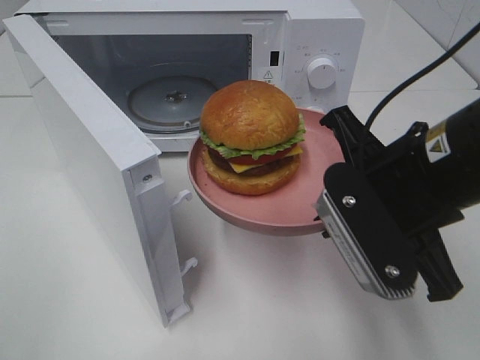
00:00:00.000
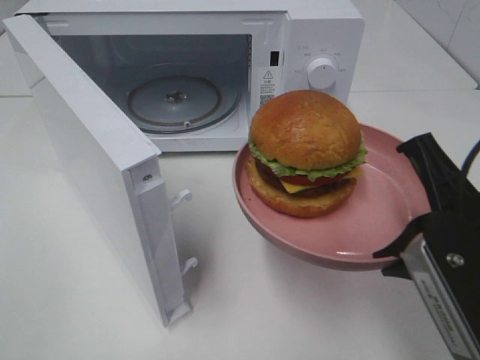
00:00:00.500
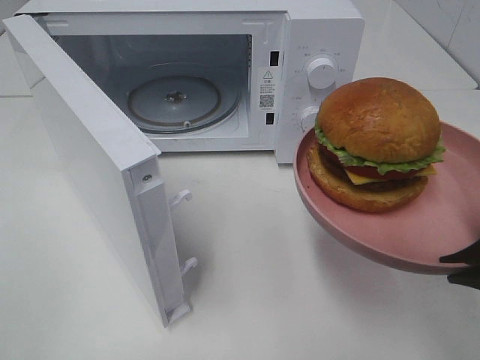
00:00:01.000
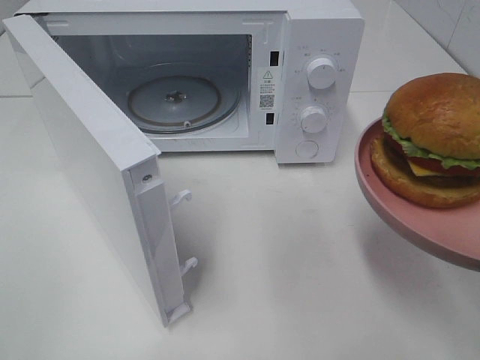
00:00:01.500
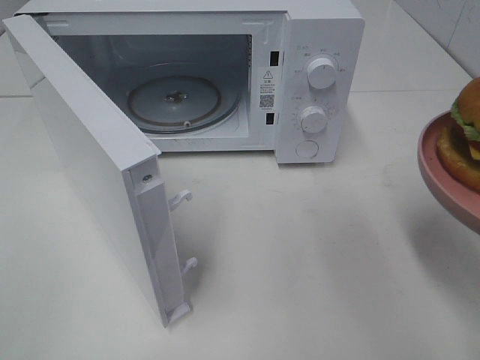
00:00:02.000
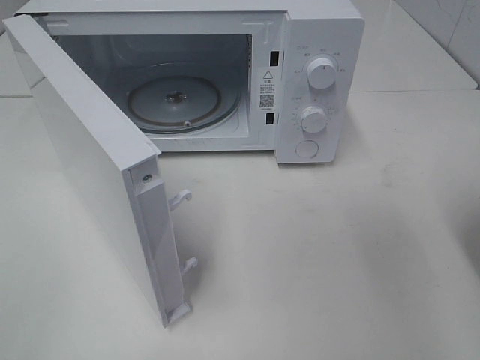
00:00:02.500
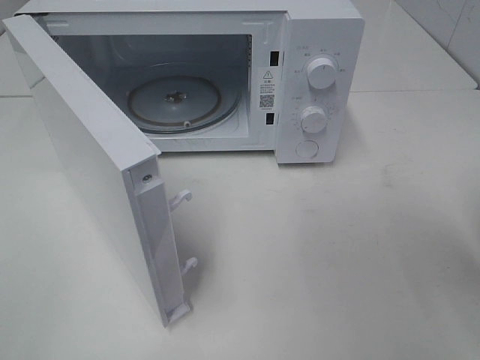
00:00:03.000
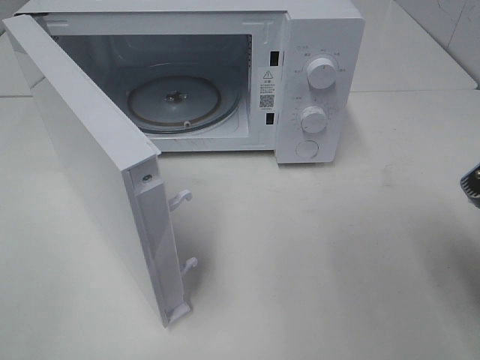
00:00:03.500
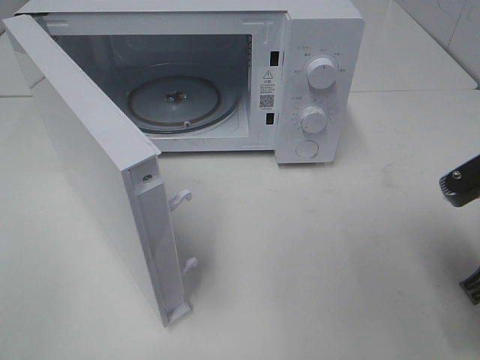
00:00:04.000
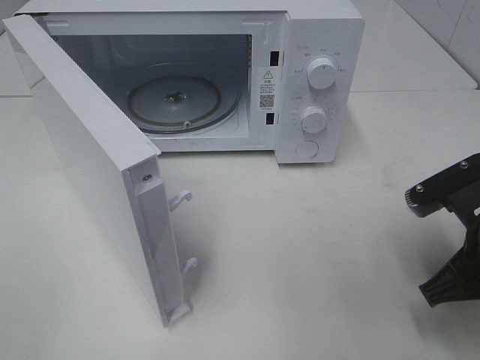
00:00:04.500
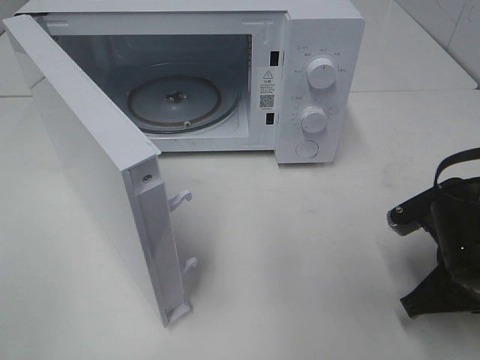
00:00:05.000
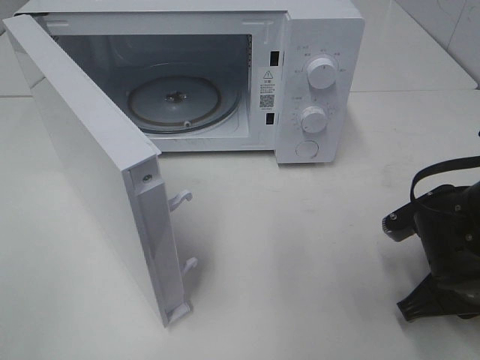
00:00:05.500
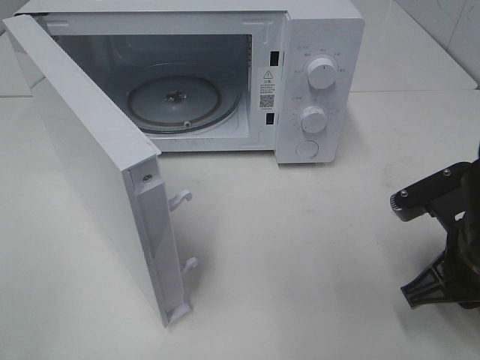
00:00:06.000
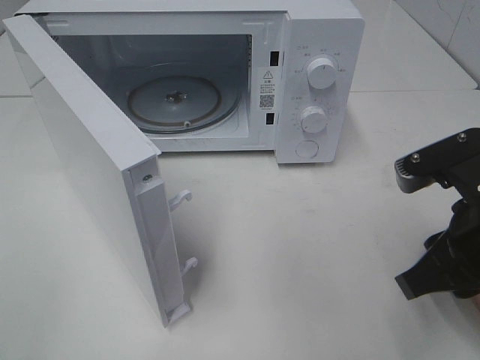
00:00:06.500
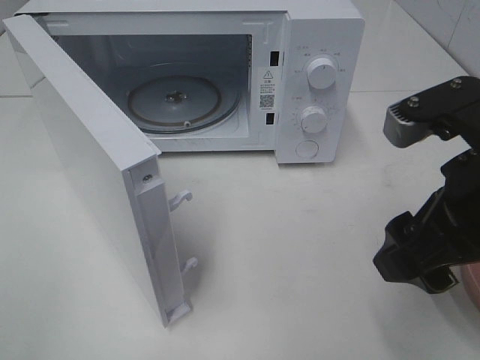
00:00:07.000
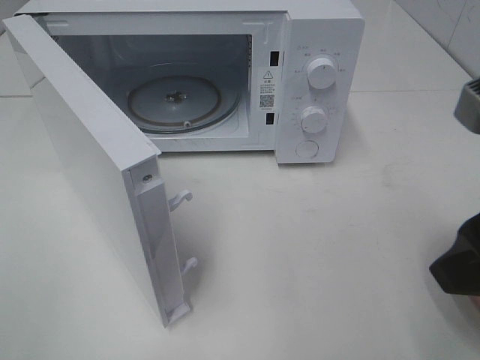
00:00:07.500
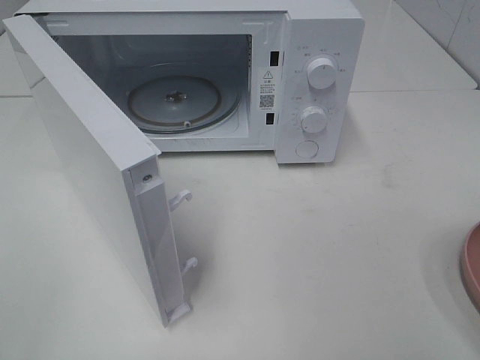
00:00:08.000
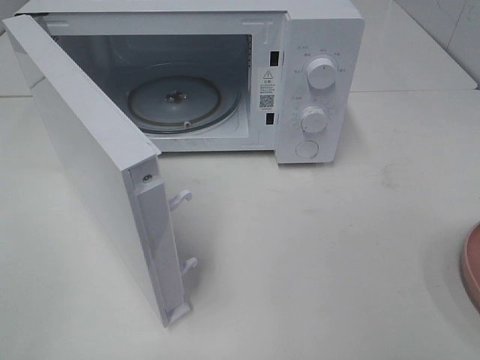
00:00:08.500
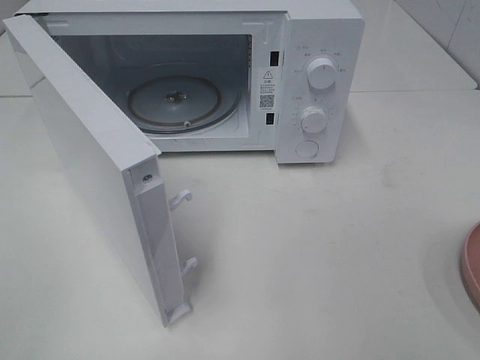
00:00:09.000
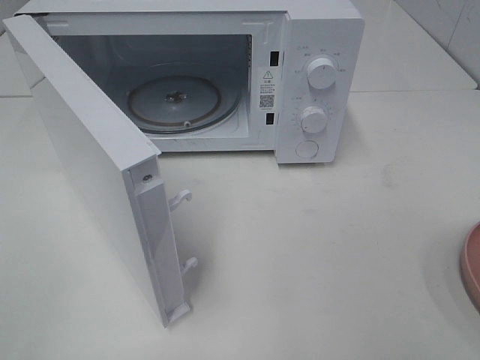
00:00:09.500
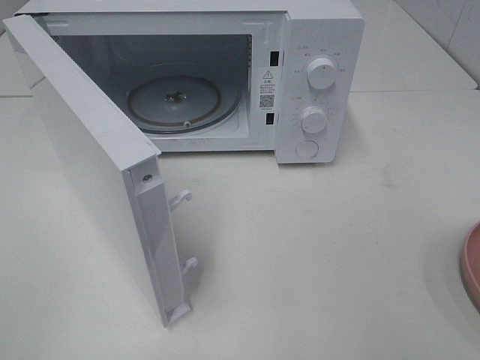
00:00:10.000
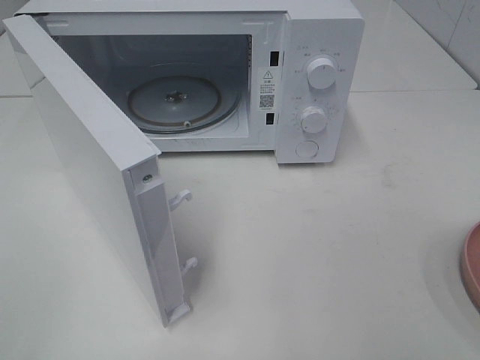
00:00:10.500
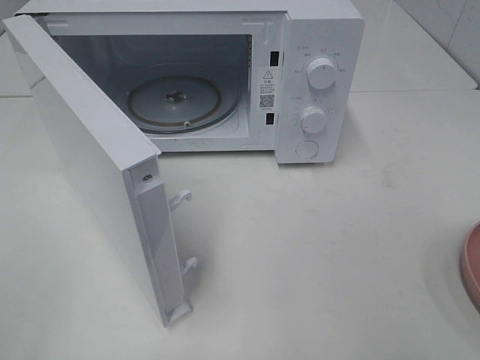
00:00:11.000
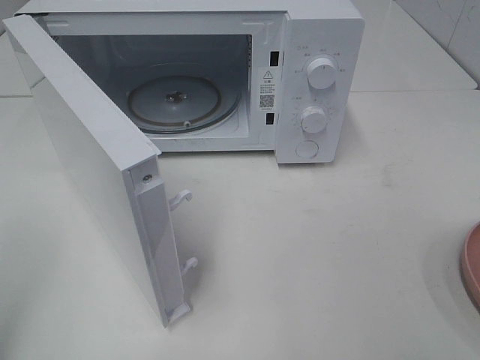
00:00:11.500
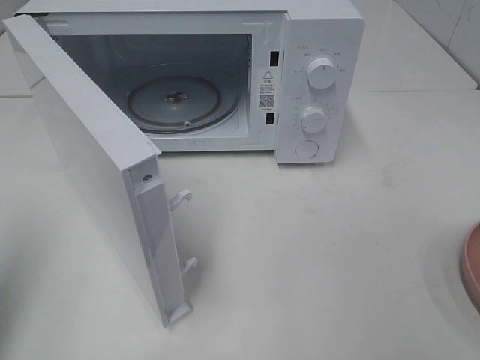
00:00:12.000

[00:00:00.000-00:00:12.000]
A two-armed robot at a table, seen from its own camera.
Task of the whole recording: Heat the burger.
Step, 00:00:00.000 to 00:00:05.500: Right hand: place the plate on the table.
00:00:00.000 to 00:00:02.000: The right gripper travels to the right and backward by about 15 cm.
00:00:02.000 to 00:00:04.000: The right gripper travels downward and forward by some 10 cm.
00:00:06.000 to 00:00:08.000: The right gripper travels upward and backward by some 20 cm, and opens its fingers.
00:00:10.000 to 00:00:12.000: The left gripper travels forward by roughly 15 cm, and closes.

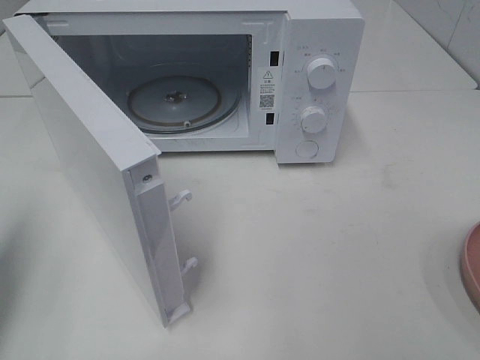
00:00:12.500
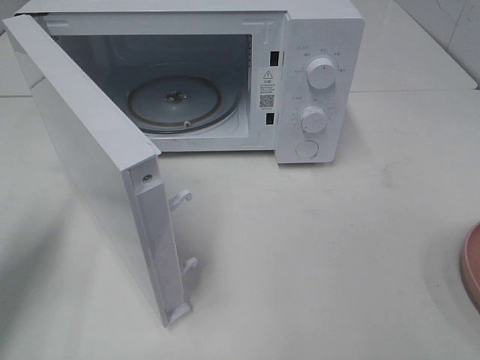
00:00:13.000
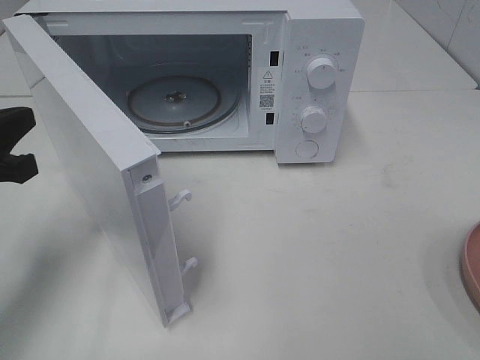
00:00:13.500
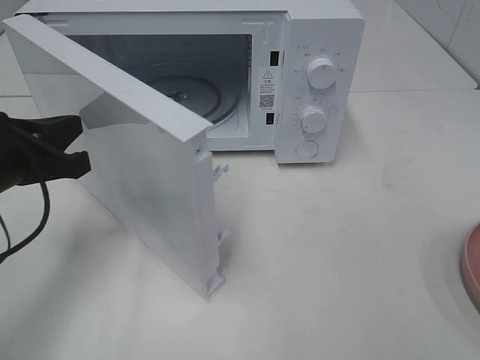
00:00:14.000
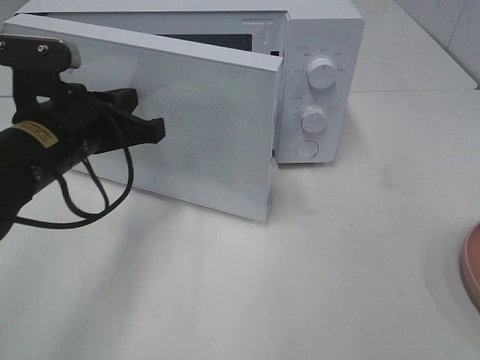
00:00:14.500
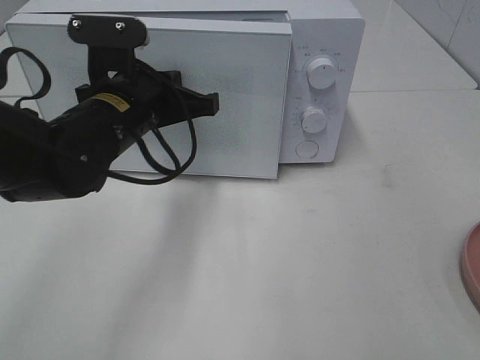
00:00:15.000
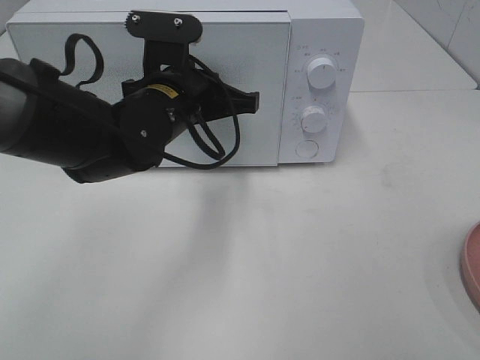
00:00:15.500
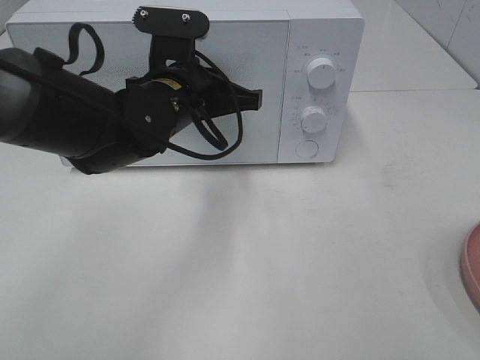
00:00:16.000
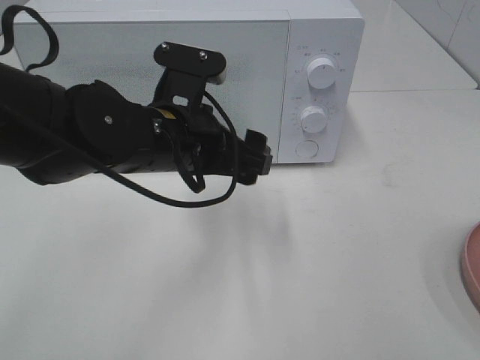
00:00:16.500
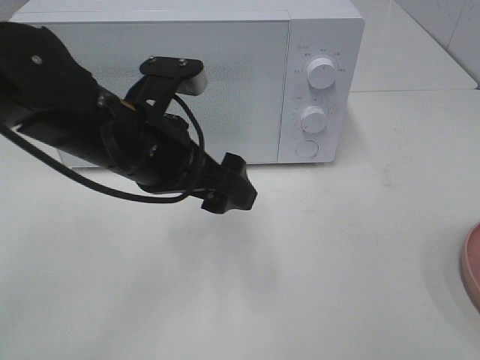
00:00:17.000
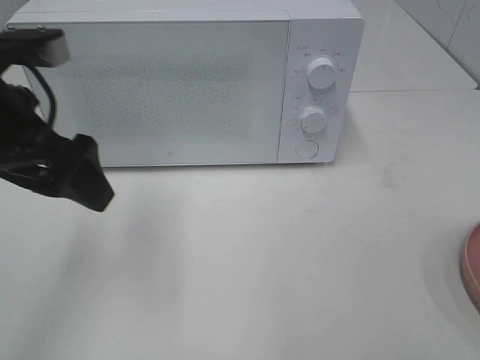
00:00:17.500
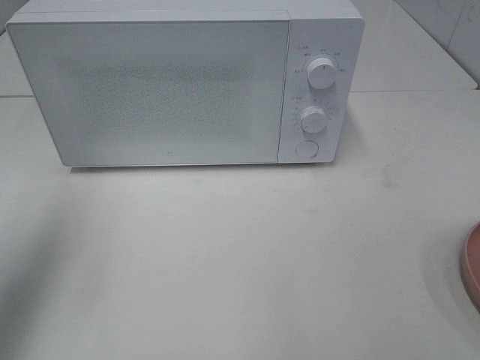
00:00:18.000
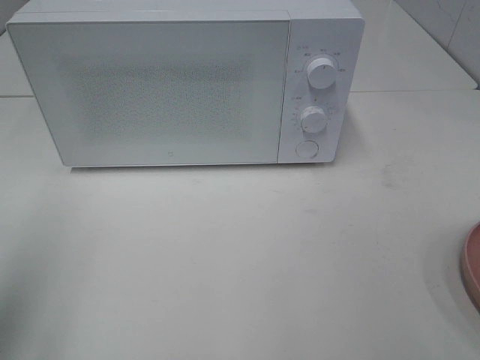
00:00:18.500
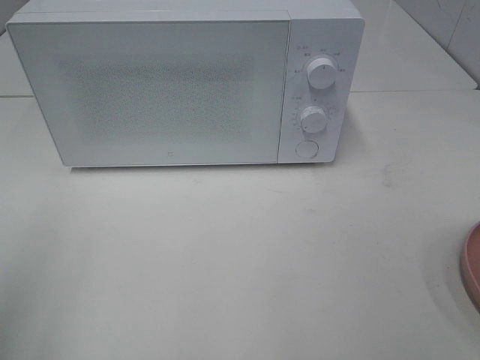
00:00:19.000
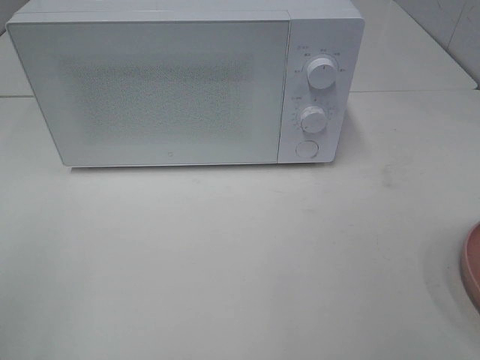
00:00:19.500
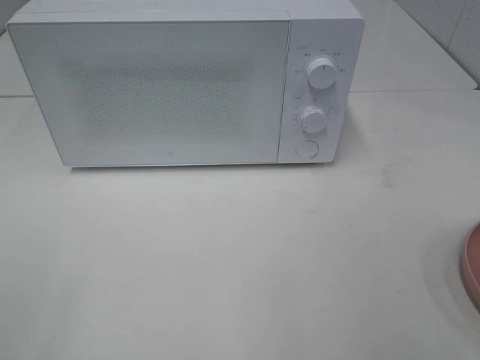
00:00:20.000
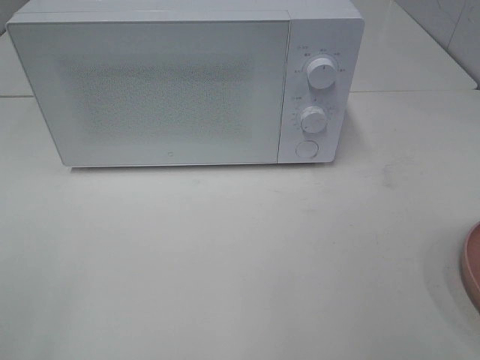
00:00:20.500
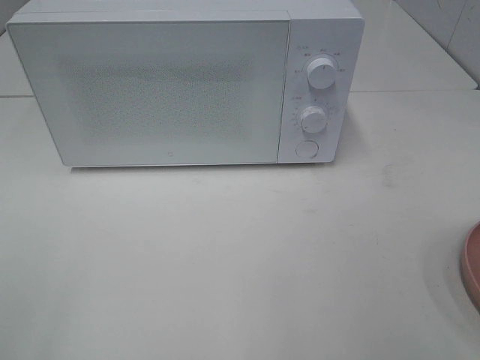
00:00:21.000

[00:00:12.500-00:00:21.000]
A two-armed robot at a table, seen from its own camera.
Task of the whole recording: Heat the burger.
Step, 00:00:12.500 to 00:00:16.000: Left hand: close the microwave door.
00:00:12.500 to 00:00:14.500: The left gripper heads to the right and forward, covering about 20 cm.
00:00:14.500 to 00:00:16.500: The left gripper is displaced to the right by some 10 cm, and opens up.
00:00:16.500 to 00:00:19.000: The left gripper goes approximately 30 cm to the left and backward.

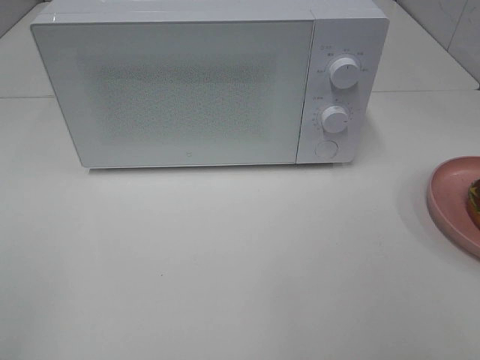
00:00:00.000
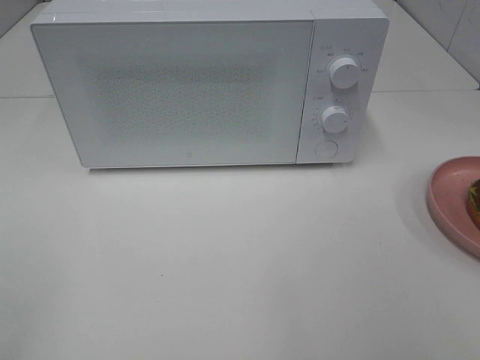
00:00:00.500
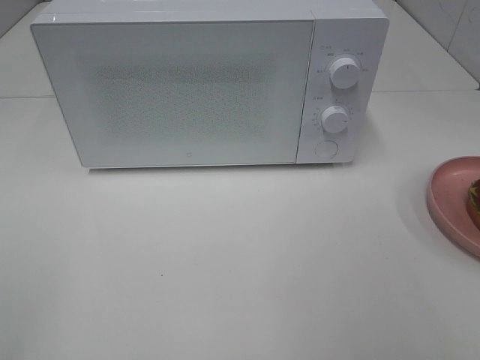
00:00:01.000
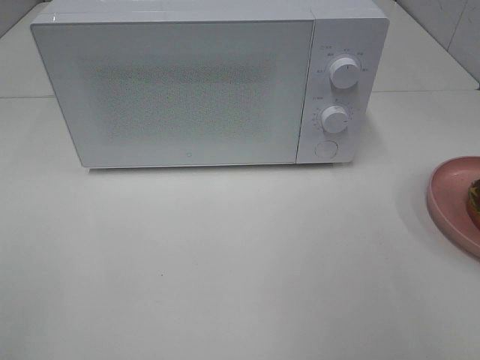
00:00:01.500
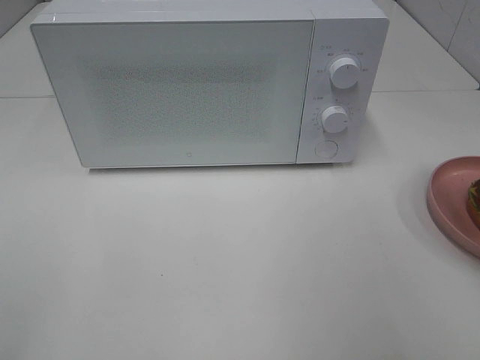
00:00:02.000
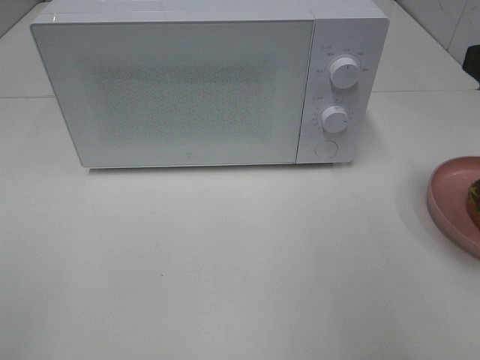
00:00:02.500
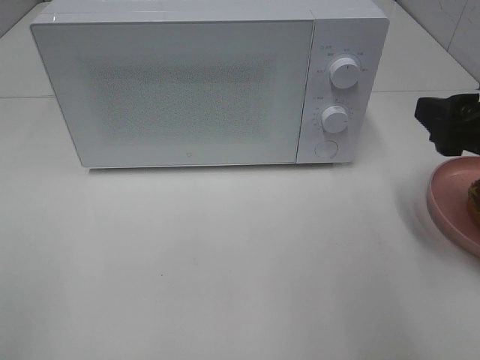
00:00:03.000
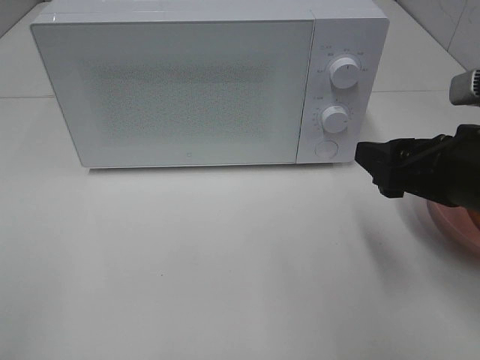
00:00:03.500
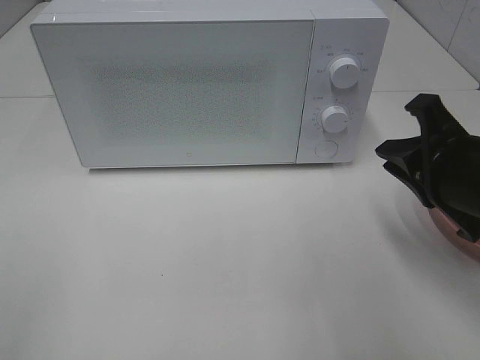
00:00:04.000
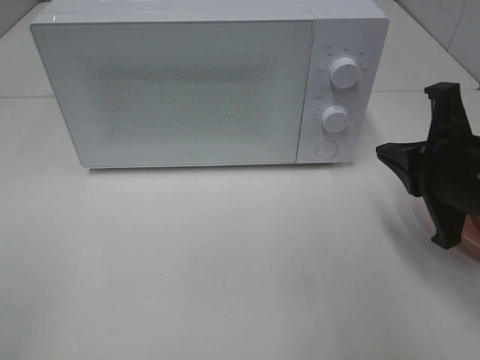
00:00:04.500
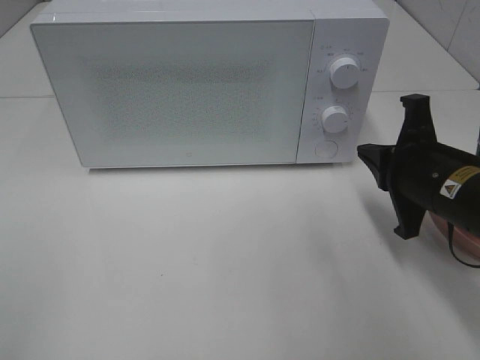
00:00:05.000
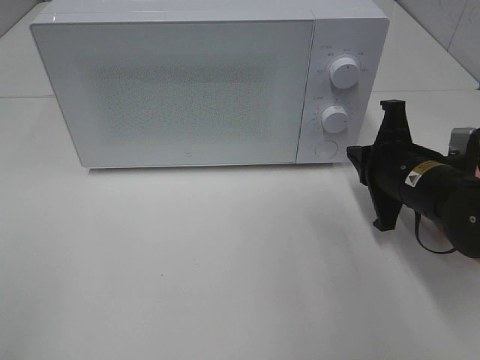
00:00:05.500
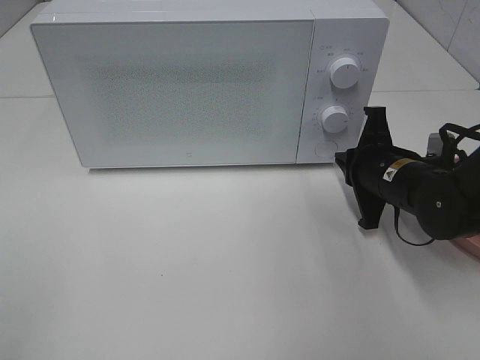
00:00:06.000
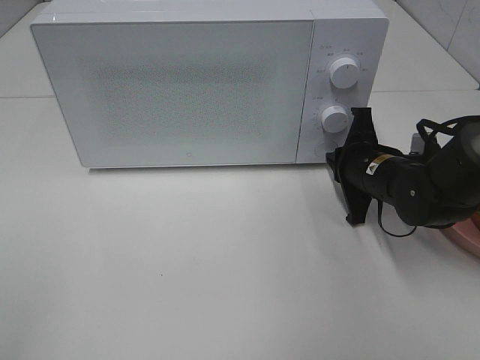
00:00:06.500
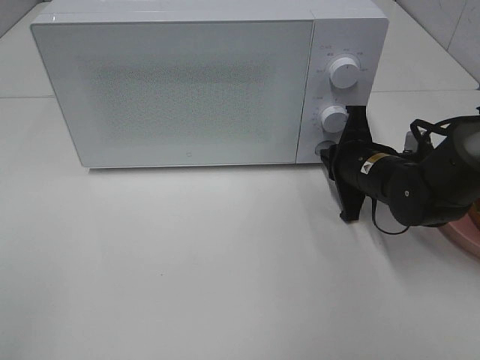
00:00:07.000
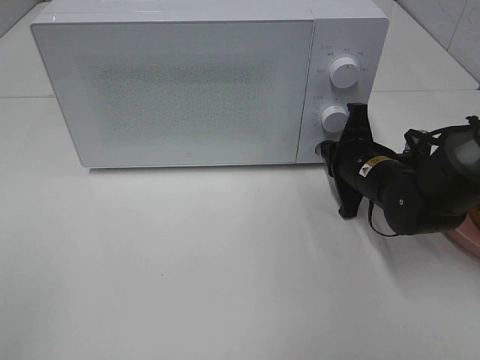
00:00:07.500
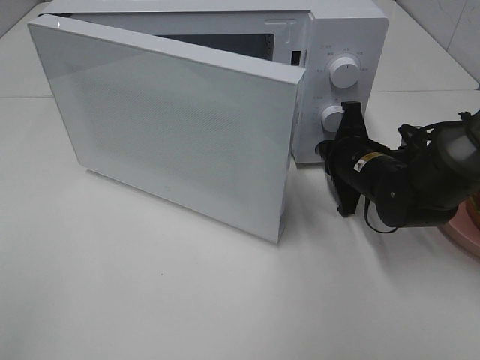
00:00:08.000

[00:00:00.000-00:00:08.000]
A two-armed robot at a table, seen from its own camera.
Task of the whole recording: Heat the burger.
00:00:02.000 to 00:00:04.000: The right gripper shifts approximately 15 cm downward, forward and to the left, and closes.
00:00:04.000 to 00:00:06.000: The right gripper travels forward and downward by roughly 15 cm.
00:00:06.000 to 00:00:08.000: The grippers stay close to where they were, moving slightly.
